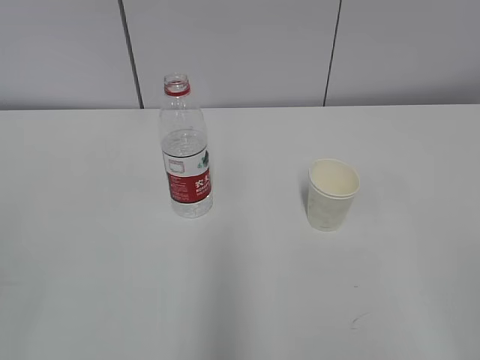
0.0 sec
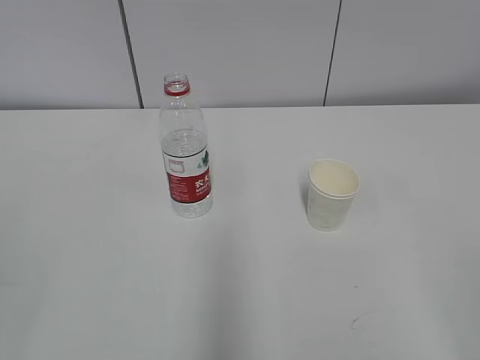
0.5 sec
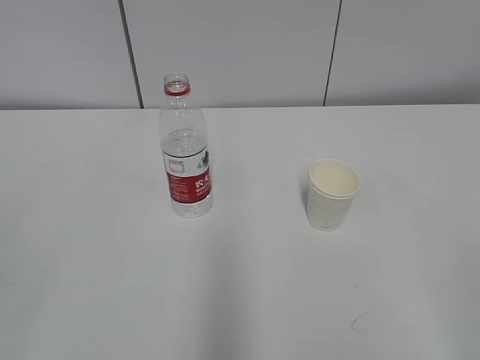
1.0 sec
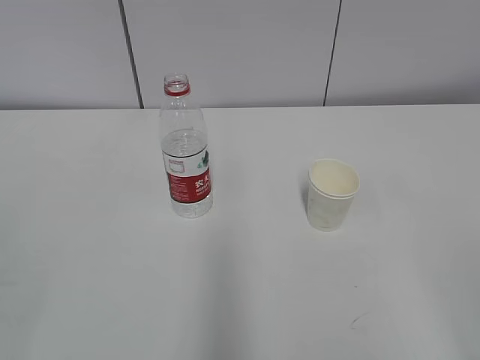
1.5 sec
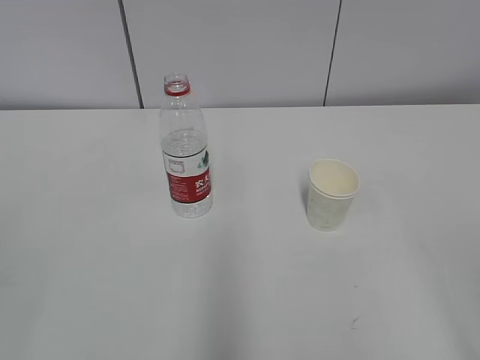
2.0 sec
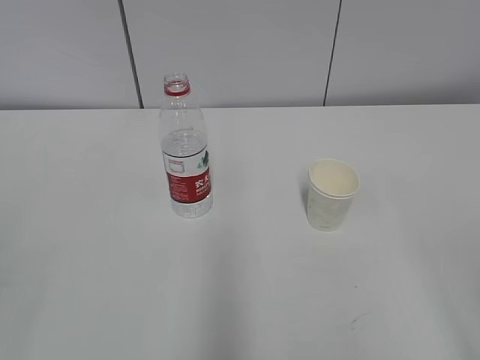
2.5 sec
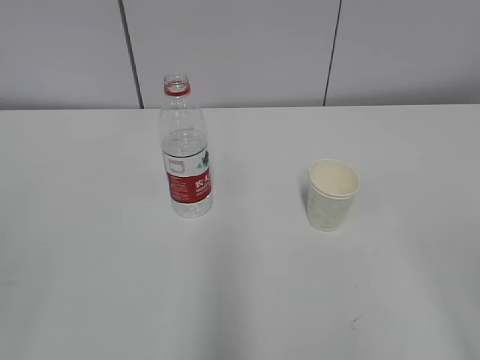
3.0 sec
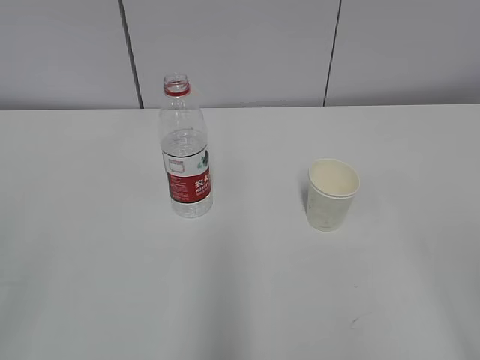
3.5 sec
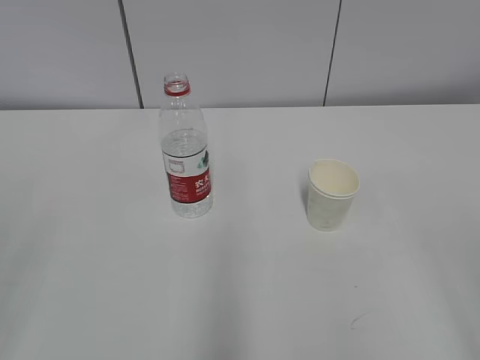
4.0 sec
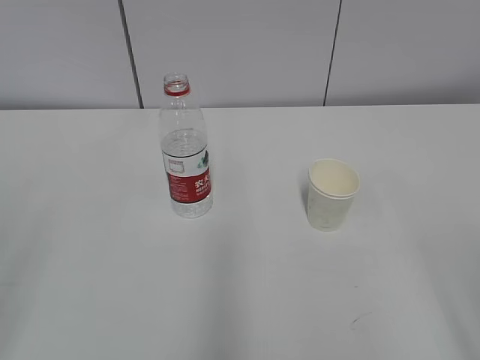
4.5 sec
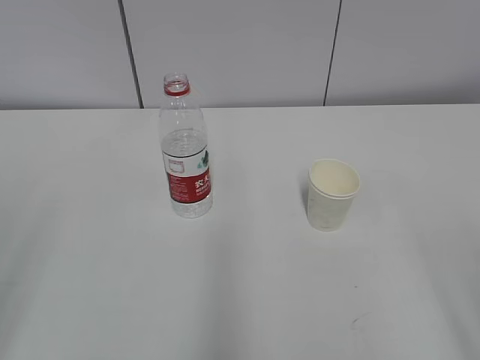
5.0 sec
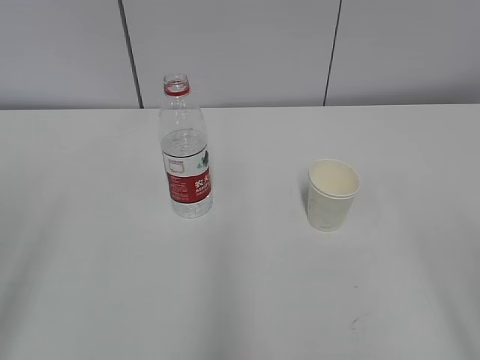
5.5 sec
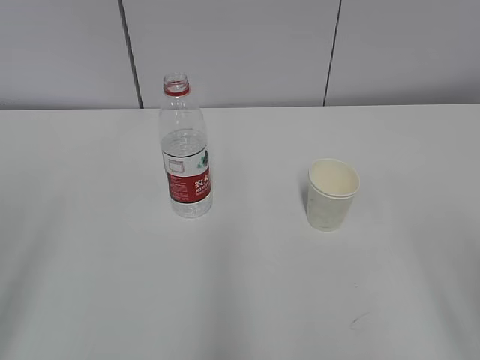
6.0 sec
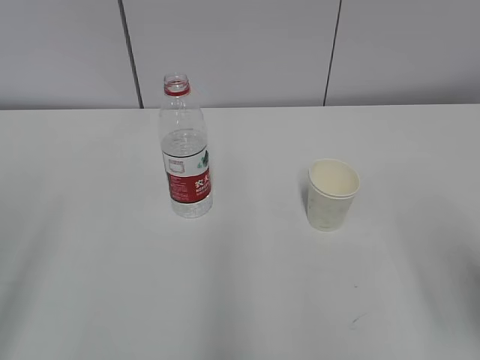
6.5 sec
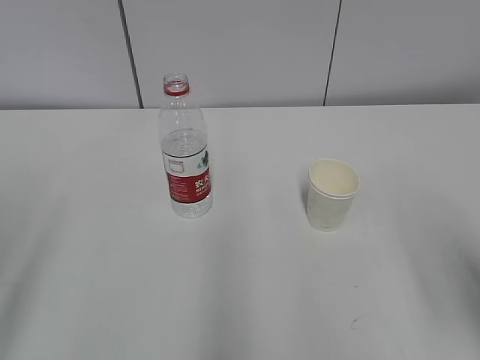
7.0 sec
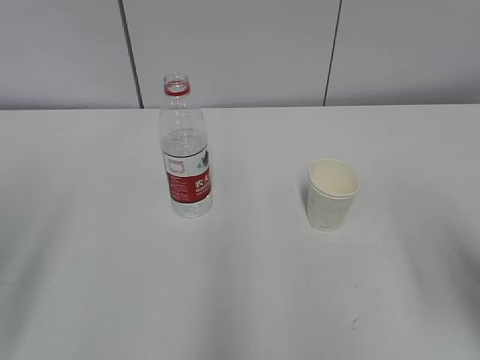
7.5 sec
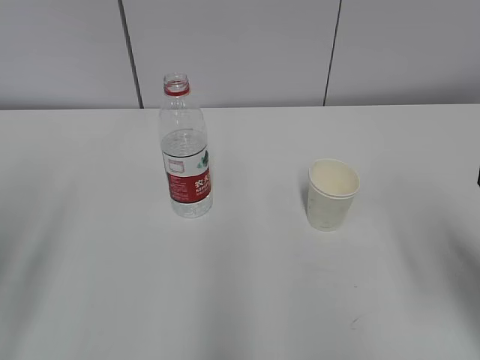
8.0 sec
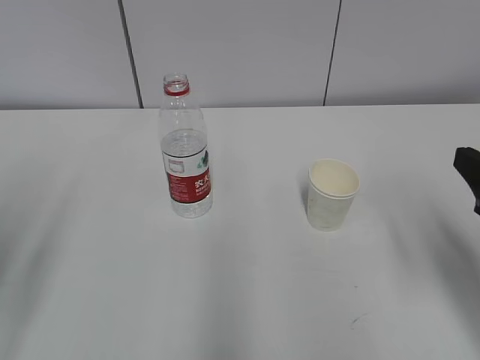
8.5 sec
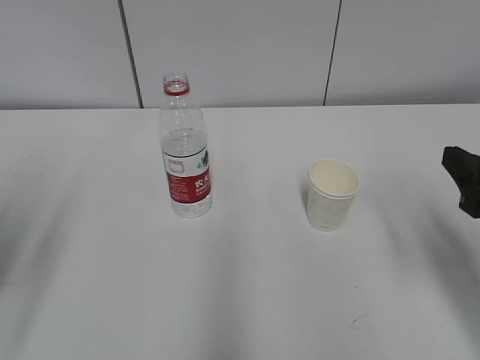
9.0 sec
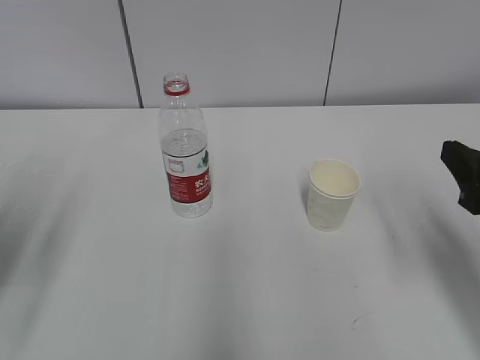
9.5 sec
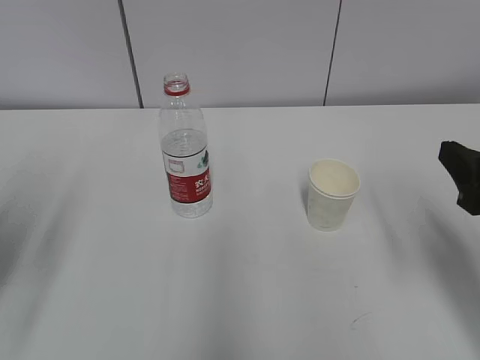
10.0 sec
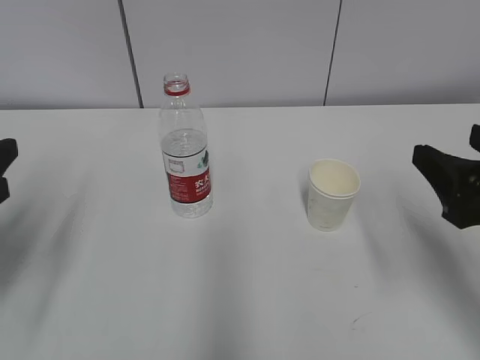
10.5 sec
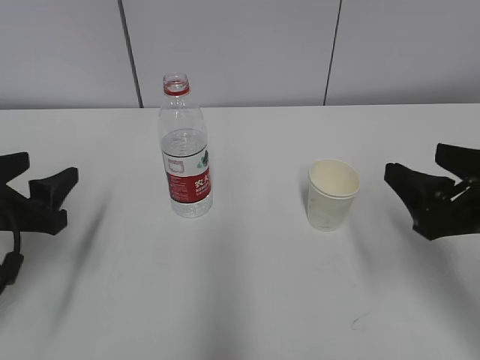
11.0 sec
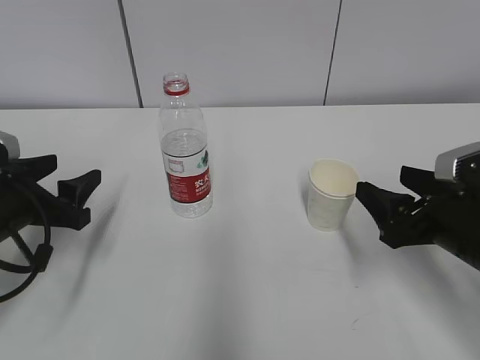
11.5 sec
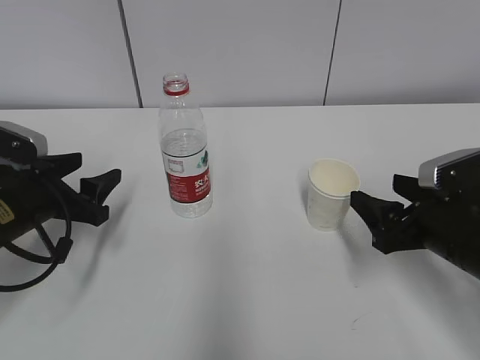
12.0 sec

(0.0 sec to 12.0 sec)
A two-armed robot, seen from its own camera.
6.0 sec - 8.0 sec: The right gripper travels forward by about 10 cm.
8.0 sec - 10.0 sec: The right gripper moves approximately 5 cm.
10.0 sec - 12.0 sec: The right gripper shifts about 10 cm downward and forward. The left gripper is displaced downward and forward by approximately 15 cm.

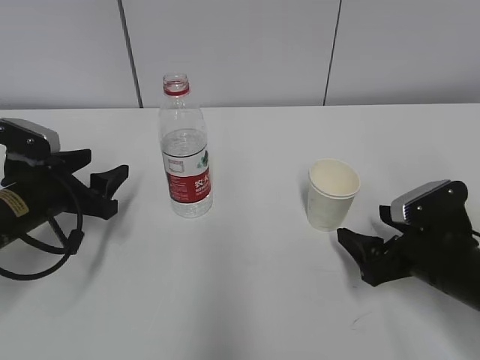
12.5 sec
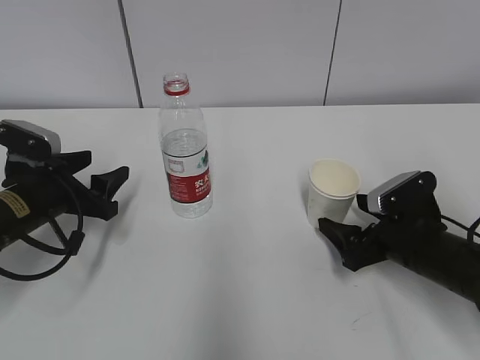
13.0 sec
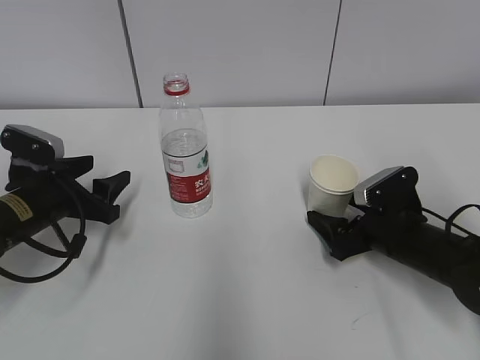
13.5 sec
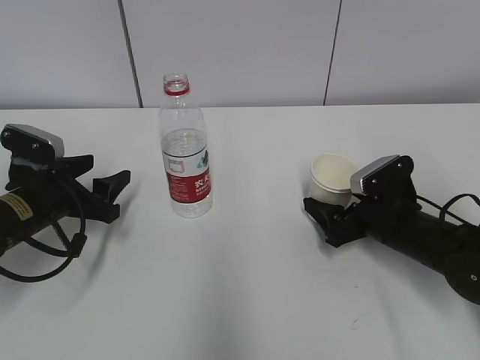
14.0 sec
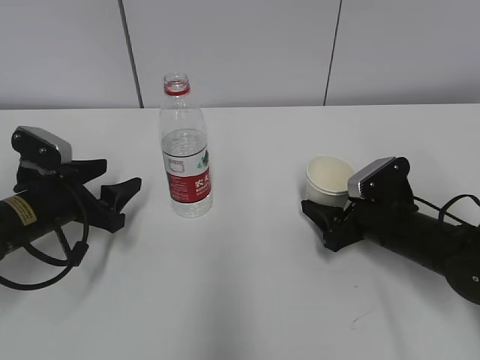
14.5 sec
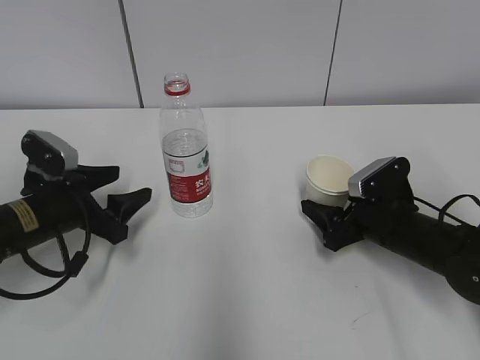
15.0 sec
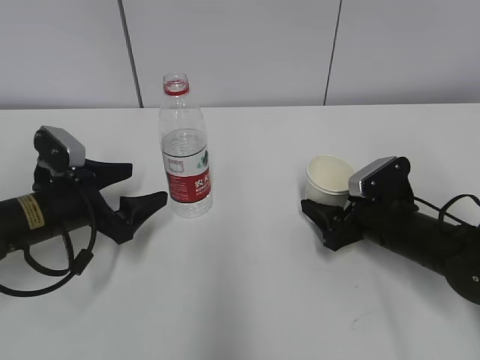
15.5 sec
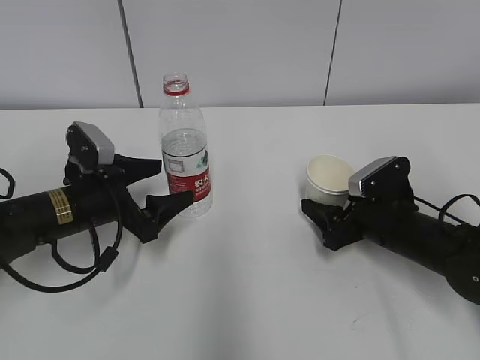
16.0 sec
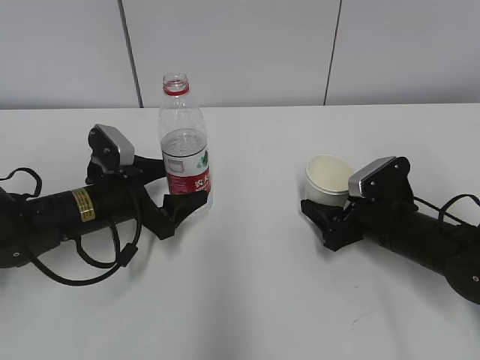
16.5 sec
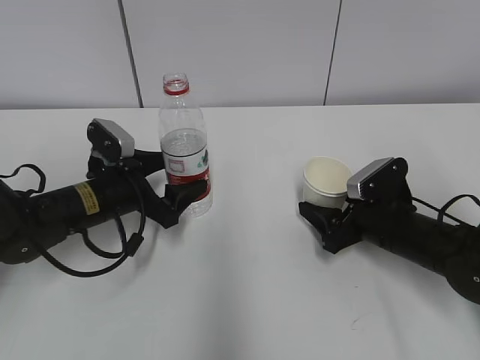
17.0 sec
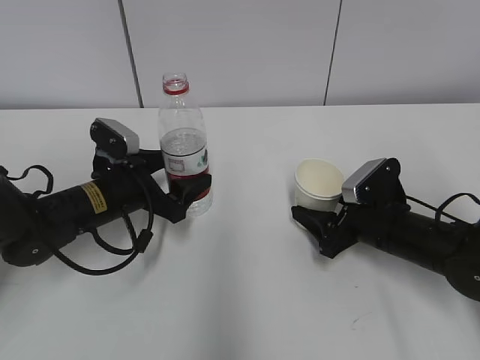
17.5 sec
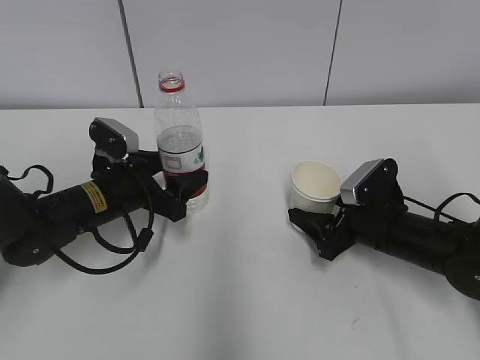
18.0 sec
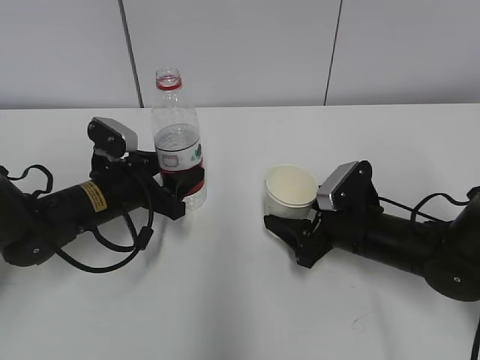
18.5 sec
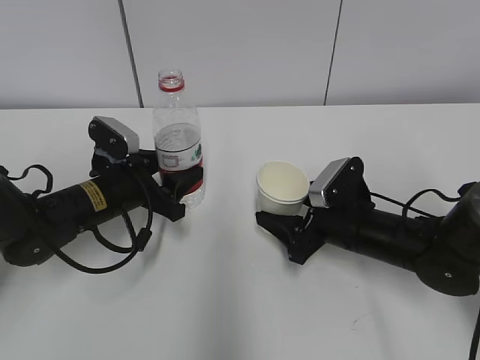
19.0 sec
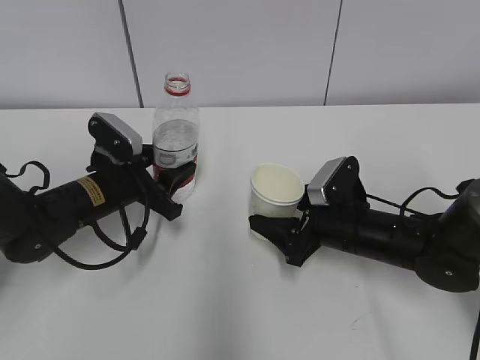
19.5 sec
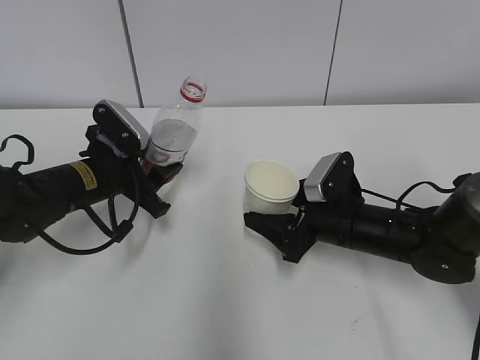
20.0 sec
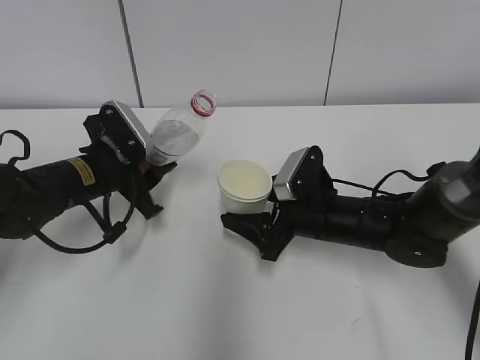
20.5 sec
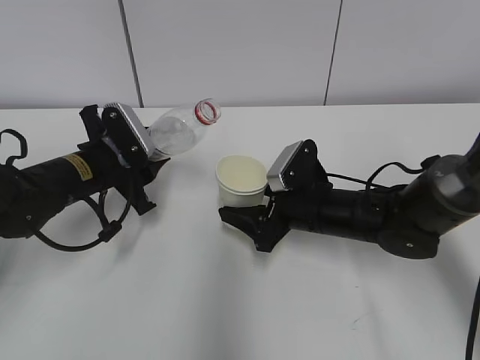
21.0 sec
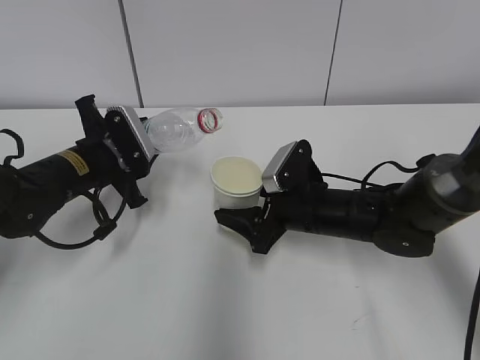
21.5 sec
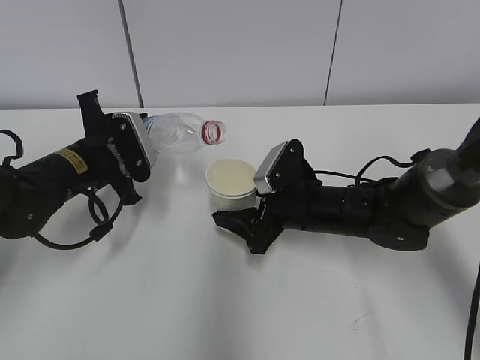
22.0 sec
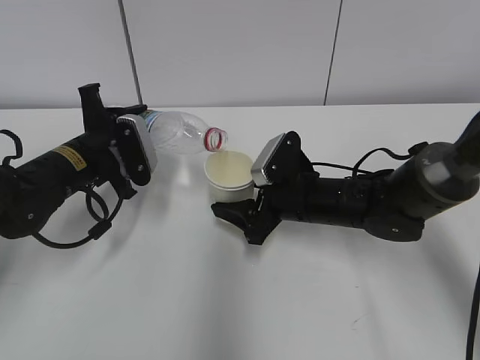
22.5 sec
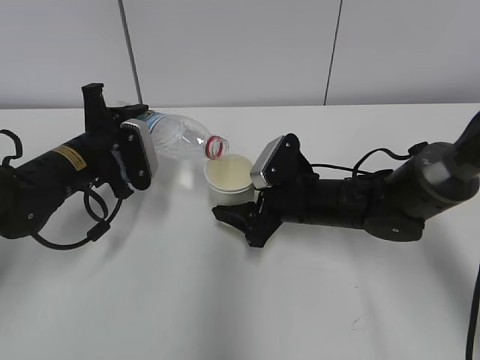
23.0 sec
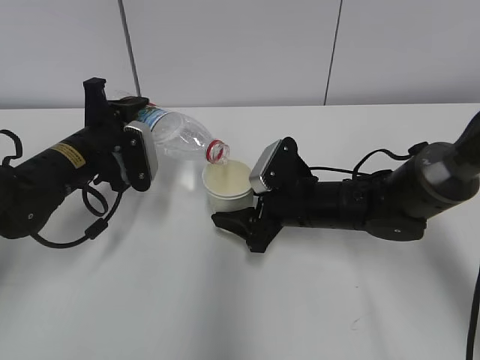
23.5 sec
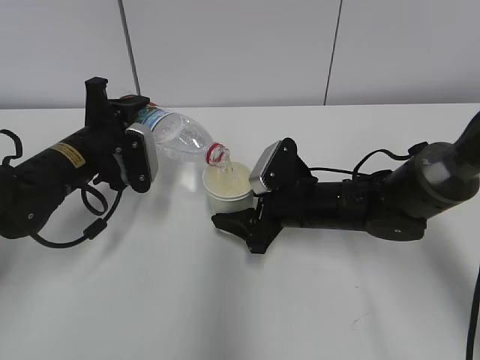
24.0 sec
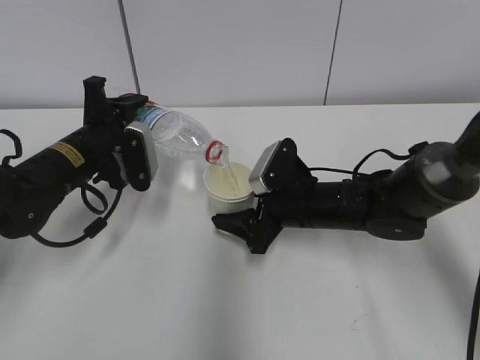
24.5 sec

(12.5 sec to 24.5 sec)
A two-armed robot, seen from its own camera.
Step, 14.5 sec - 15.5 sec: Grab the water bottle with the left hand.
Step, 16.0 sec - 19.0 sec: Lift the paper cup with the right hand.
Step, 19.5 sec - 23.0 sec: Fill water with the right hand.
Step, 19.5 sec - 23.0 sec: Pour water with the left hand.
Step, 23.5 sec - 24.0 sec: Collect water with the left hand.
12.5 sec - 14.5 sec: The right gripper goes roughly 10 cm forward, and closes its fingers.
14.5 sec - 16.5 sec: The left gripper travels to the right by approximately 5 cm.
16.5 sec - 18.5 sec: The left gripper closes up.
18.5 sec - 20.5 sec: The right gripper is displaced to the left by approximately 5 cm.
22.5 sec - 24.5 sec: The grippers stay close to where they were, moving slightly.

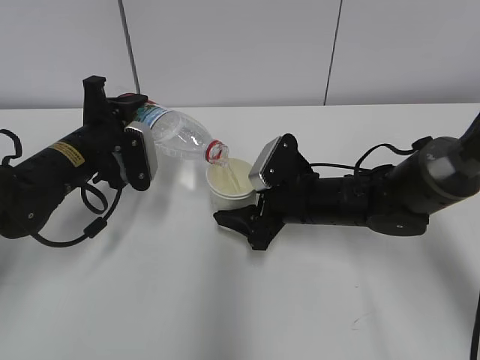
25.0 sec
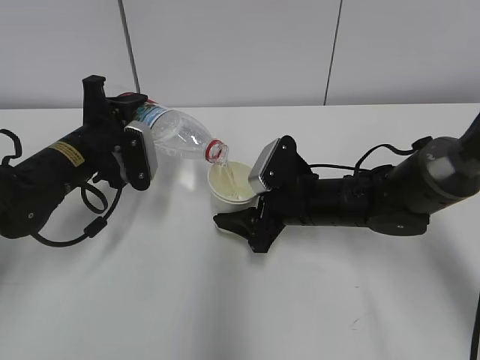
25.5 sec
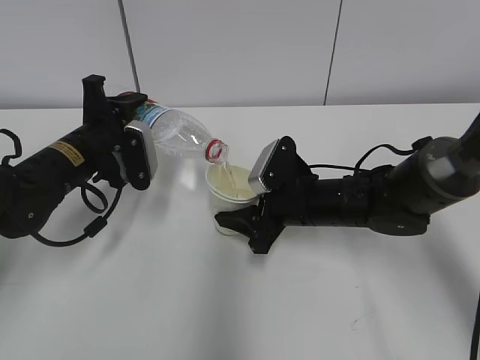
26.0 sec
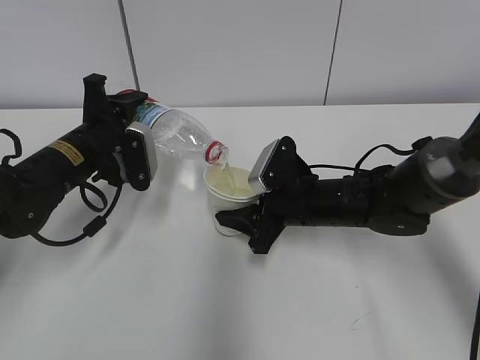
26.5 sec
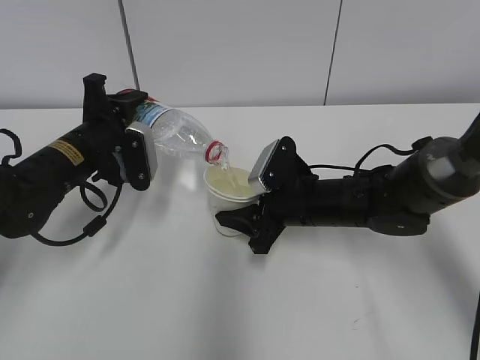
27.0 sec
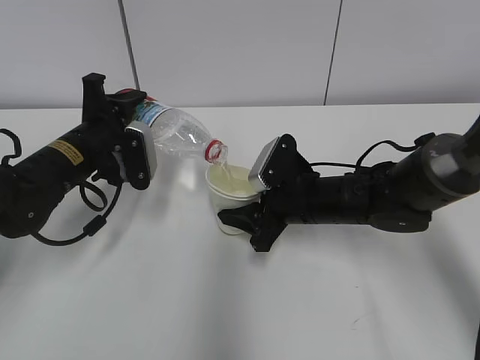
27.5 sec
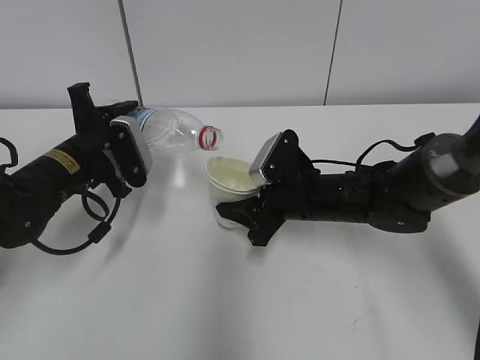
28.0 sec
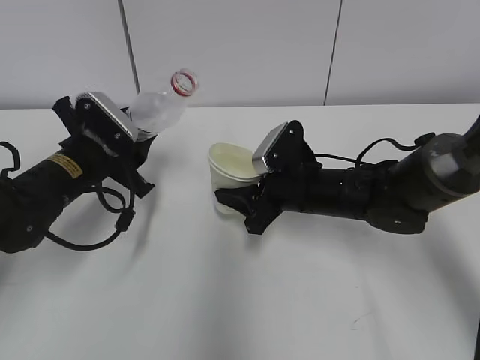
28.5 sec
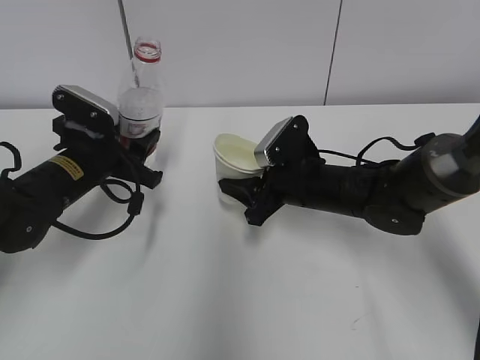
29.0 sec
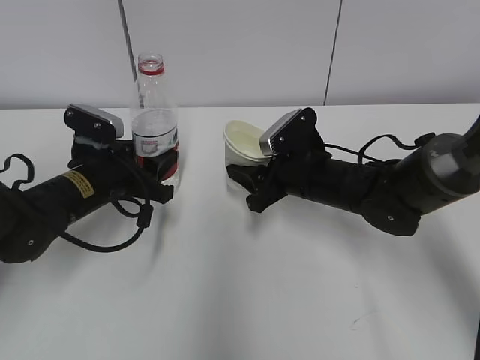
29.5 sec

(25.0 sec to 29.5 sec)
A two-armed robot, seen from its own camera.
Step, 26.5 sec - 27.5 sec: Place the water bottle with the left hand.
25.0 sec - 27.0 sec: The right gripper closes its fingers.
